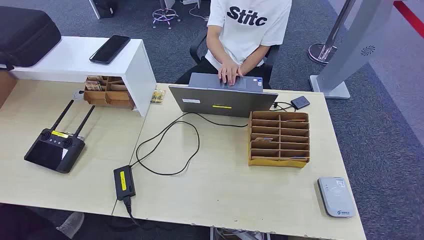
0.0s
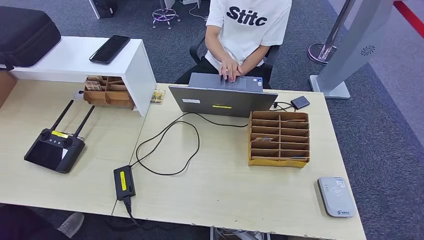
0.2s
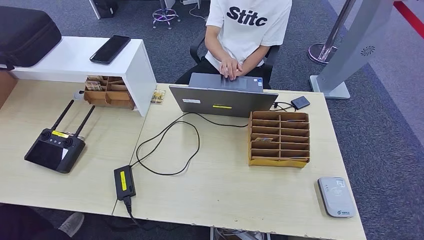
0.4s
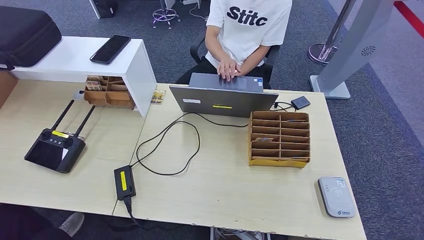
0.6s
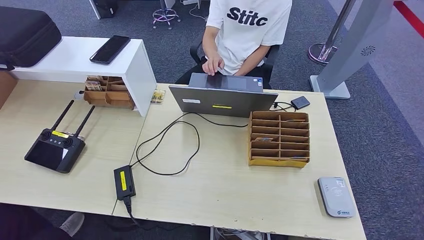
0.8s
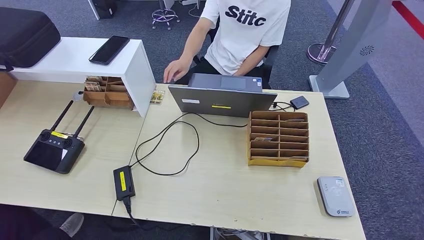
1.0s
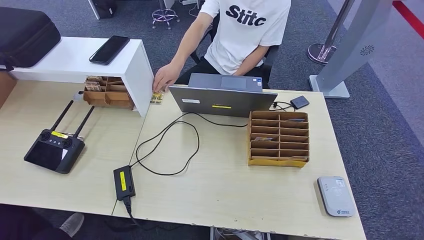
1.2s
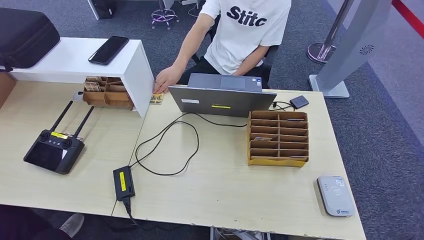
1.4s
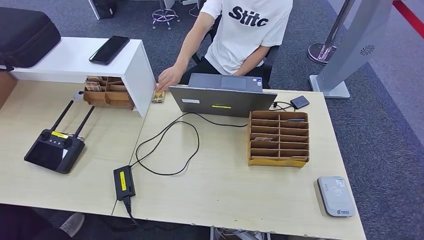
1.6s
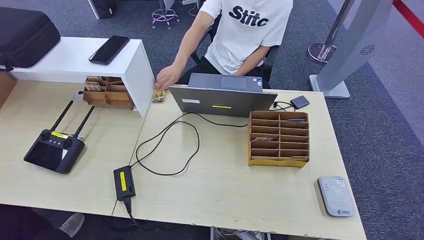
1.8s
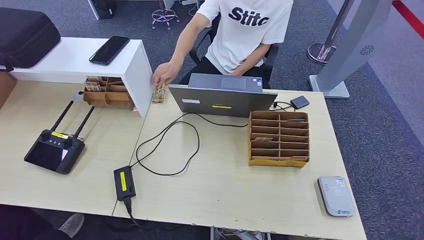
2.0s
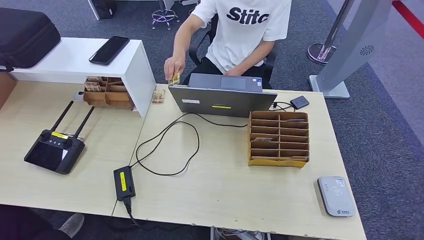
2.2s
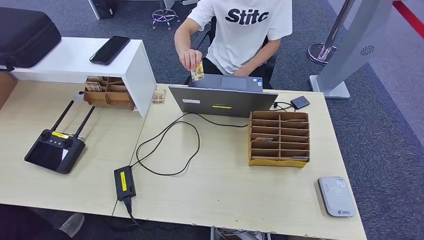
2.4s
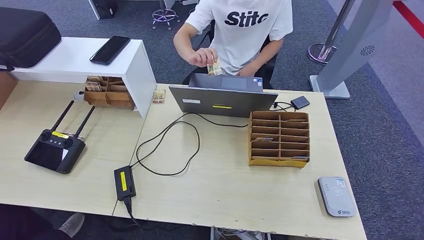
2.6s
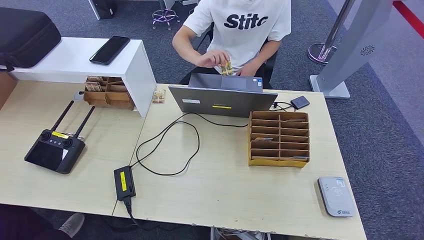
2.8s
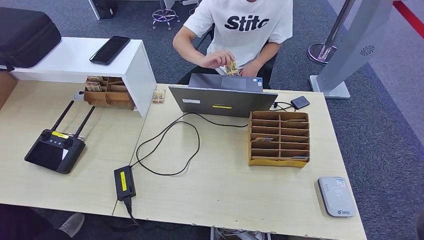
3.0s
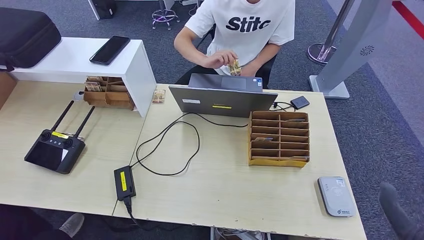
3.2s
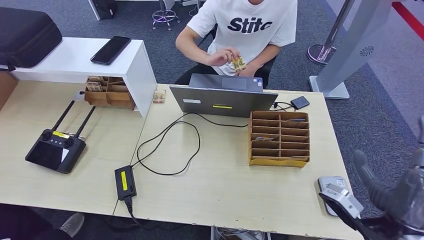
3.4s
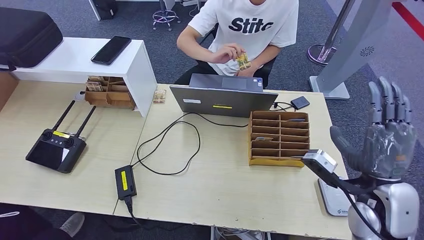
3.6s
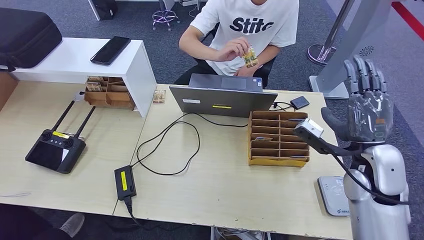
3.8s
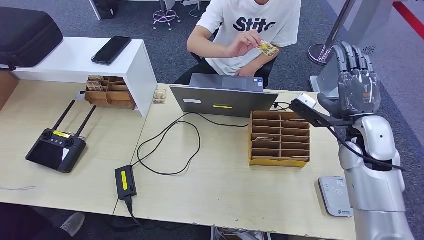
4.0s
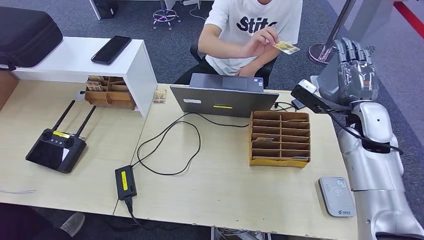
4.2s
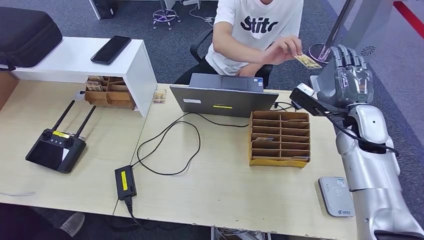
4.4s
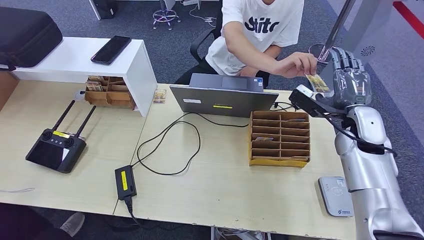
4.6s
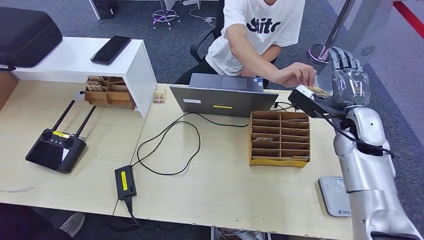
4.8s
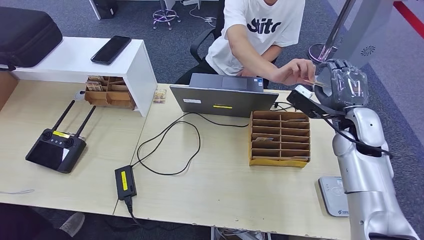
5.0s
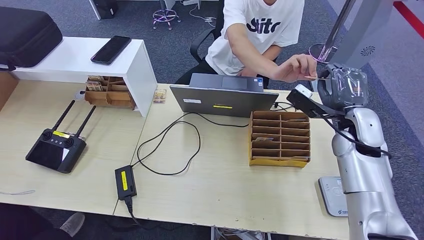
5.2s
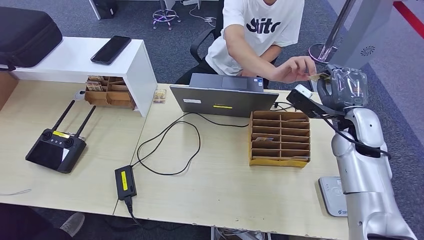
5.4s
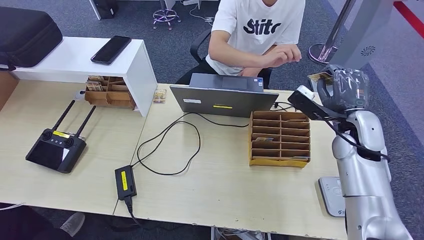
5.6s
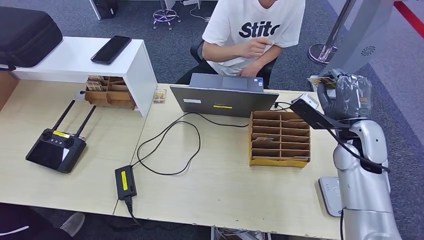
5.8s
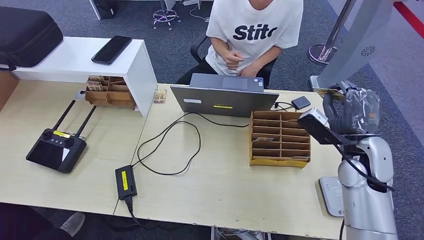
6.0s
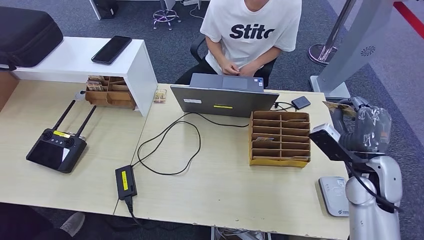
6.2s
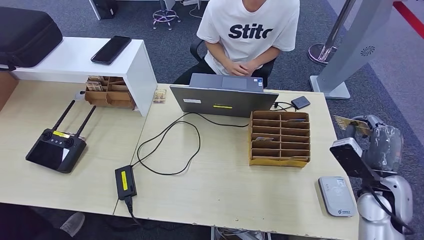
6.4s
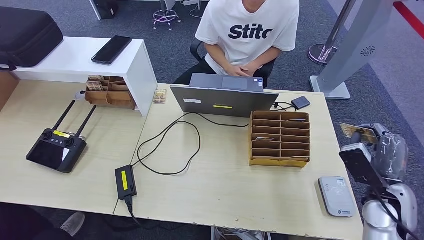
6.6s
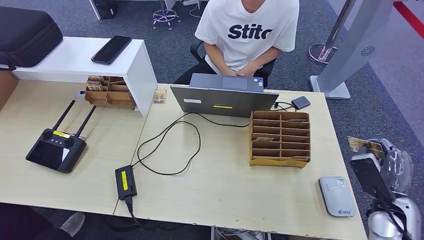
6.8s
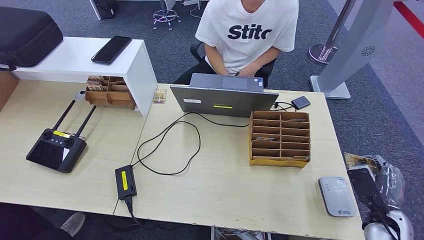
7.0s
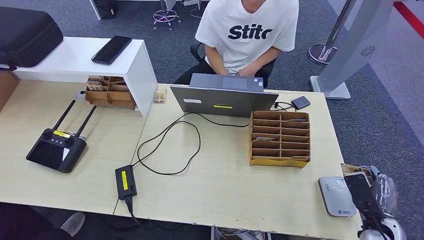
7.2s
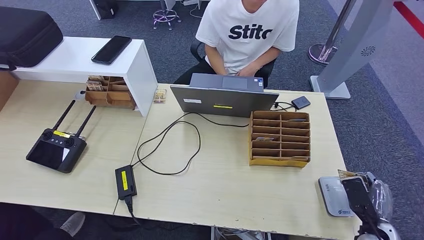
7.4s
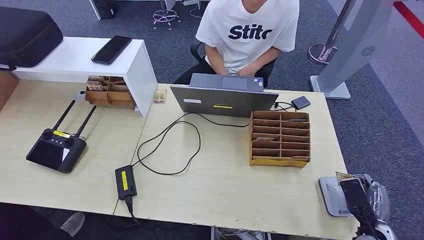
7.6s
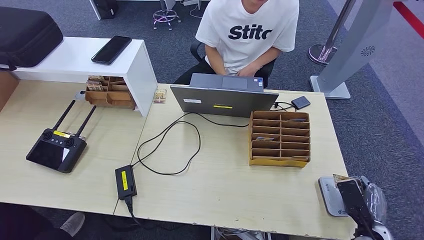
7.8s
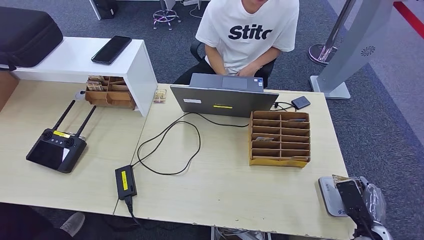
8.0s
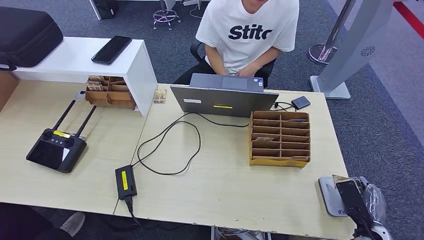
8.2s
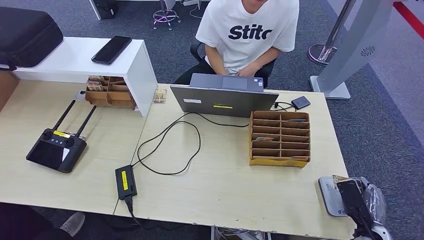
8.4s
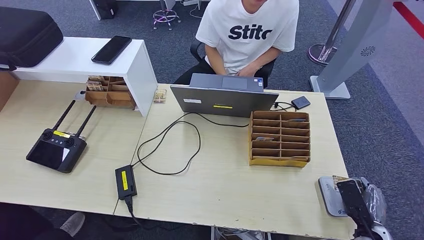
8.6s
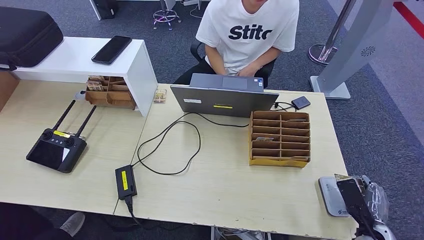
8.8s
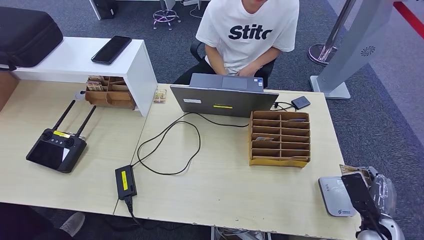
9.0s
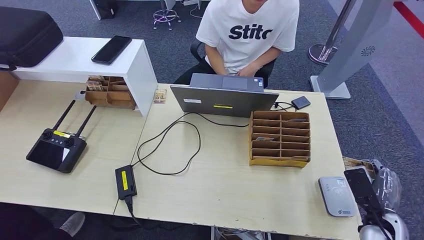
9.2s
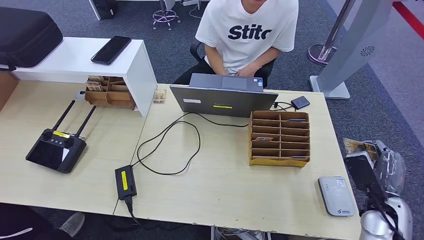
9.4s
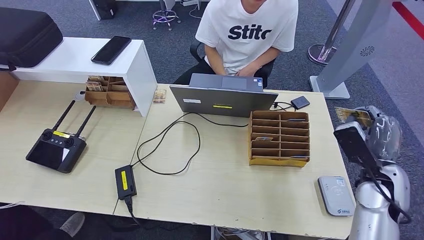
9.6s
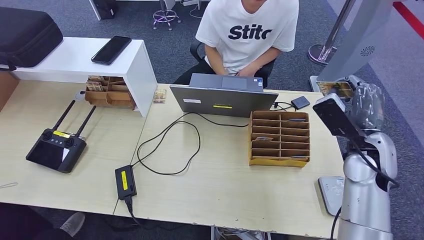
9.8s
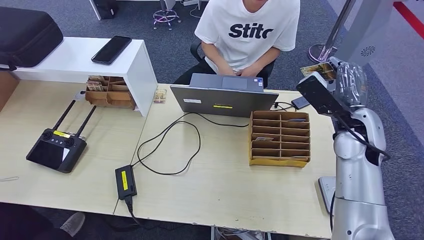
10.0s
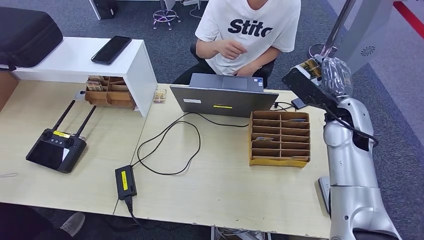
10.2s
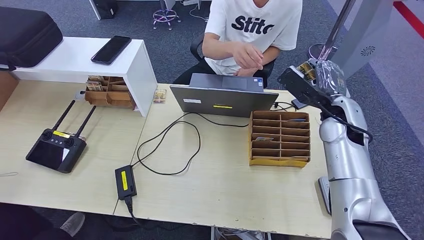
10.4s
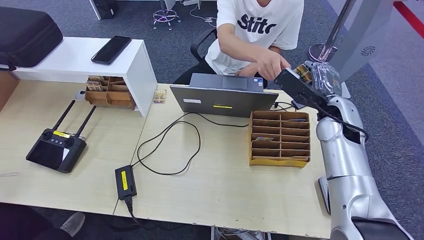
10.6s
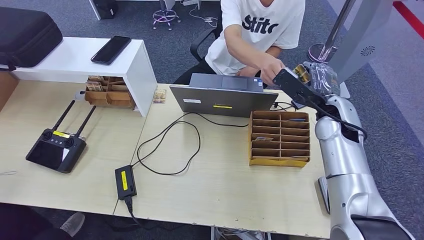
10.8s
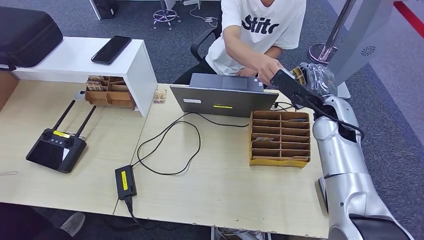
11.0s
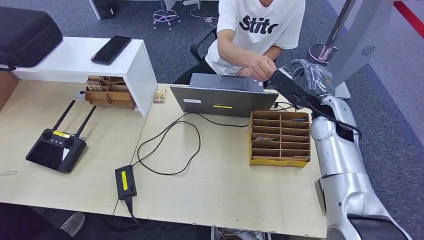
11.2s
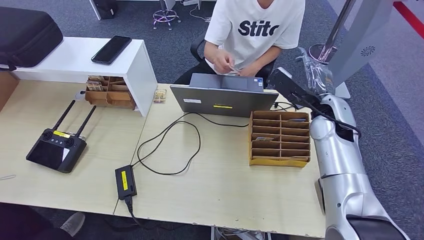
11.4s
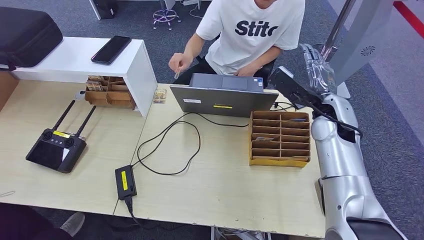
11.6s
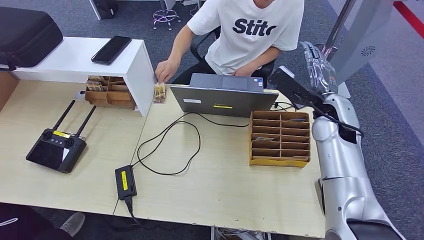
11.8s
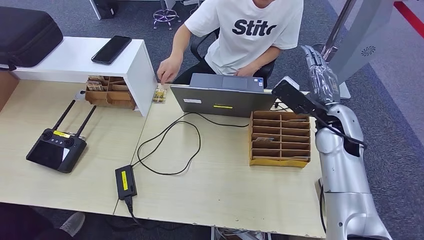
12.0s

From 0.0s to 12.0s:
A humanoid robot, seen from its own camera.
Step, from 0.0s to 6.4s: Take the ID card from the person's hand.
Step, from 6.6s to 9.0s: Place the ID card on the card reader.
From 1.6s to 3.0s: The right hand heads upward and to the left, covering approximately 20 cm.
From 3.0s to 4.4s: The right hand heads forward, covering about 30 cm.
From 4.4s to 6.0s: The right hand shifts some 5 cm backward.
From 6.0s to 7.6s: The right hand moves downward and backward, some 25 cm.
From 7.6s to 9.0s: The hands stay close to where they were, moving slightly.
From 9.0s to 10.4s: The right hand heads forward, upward and to the left, covering roughly 30 cm.
From 10.4s to 12.0s: There are only small adjustments of the hands.

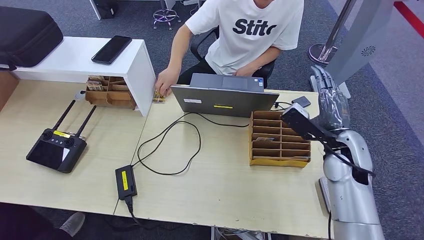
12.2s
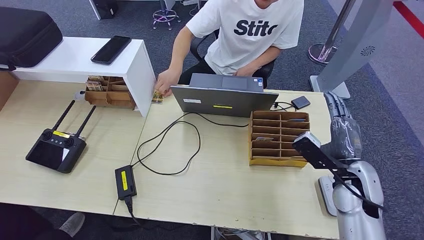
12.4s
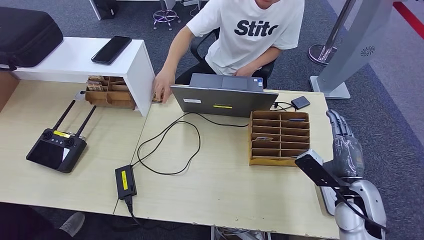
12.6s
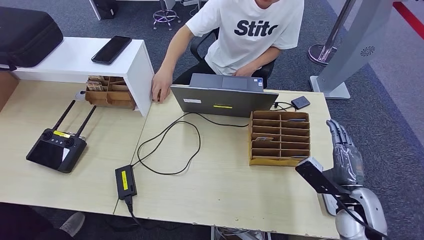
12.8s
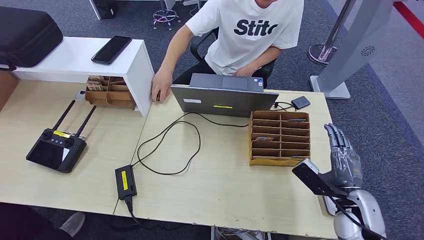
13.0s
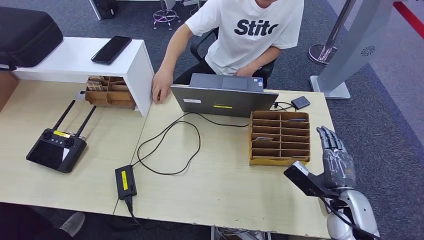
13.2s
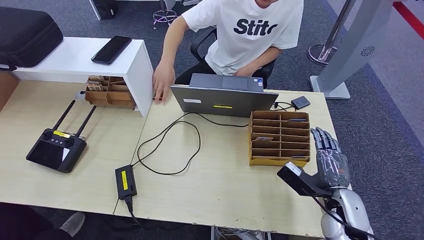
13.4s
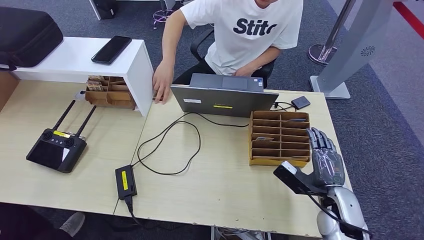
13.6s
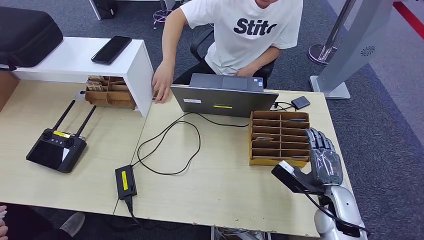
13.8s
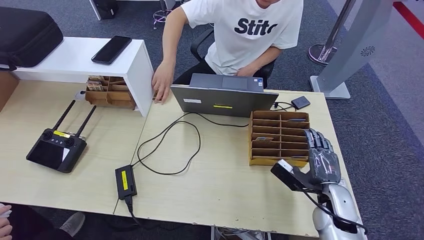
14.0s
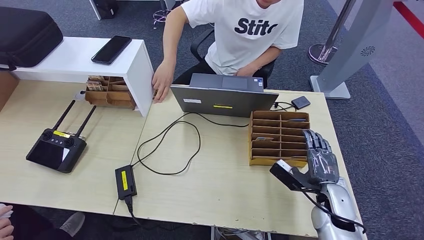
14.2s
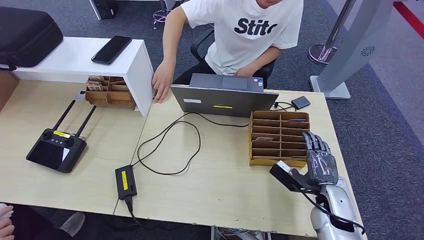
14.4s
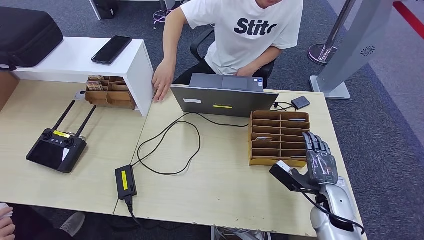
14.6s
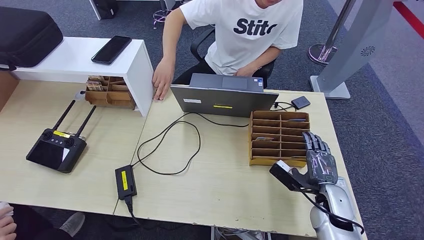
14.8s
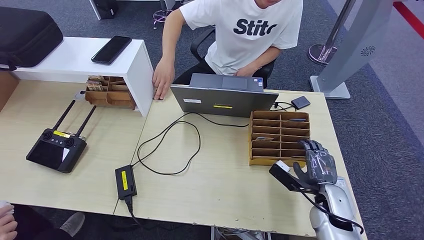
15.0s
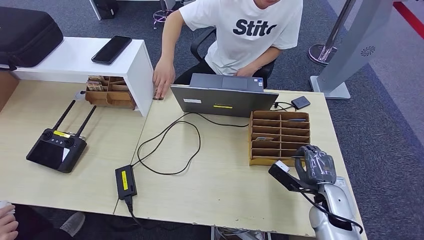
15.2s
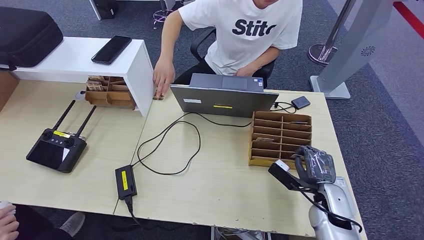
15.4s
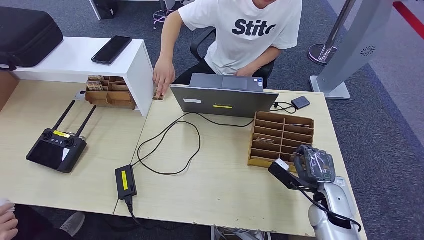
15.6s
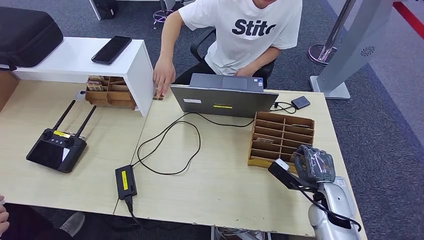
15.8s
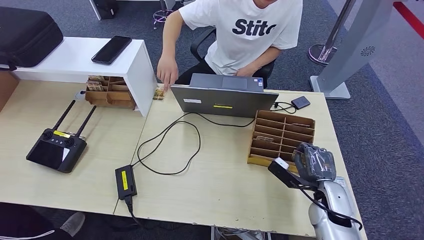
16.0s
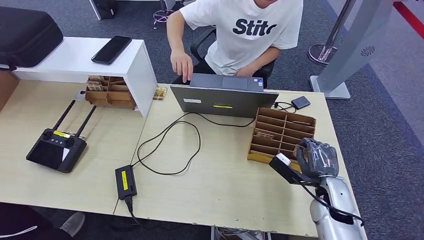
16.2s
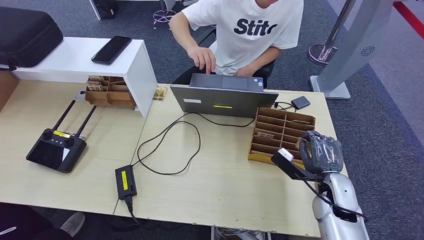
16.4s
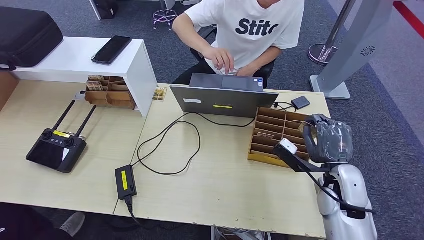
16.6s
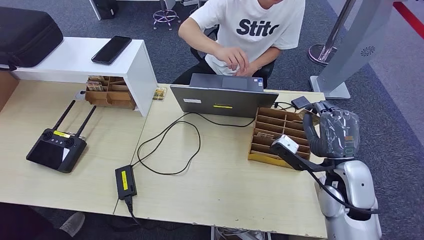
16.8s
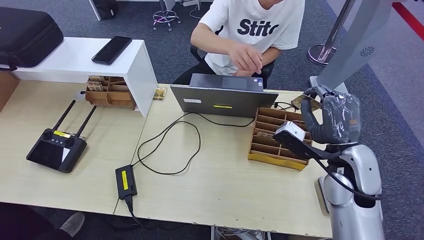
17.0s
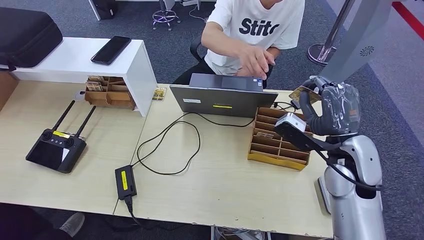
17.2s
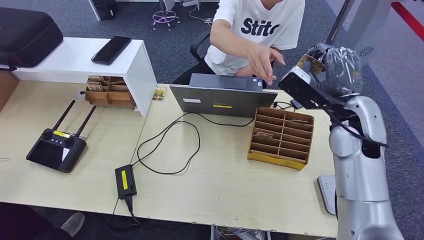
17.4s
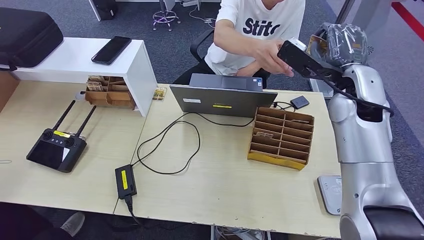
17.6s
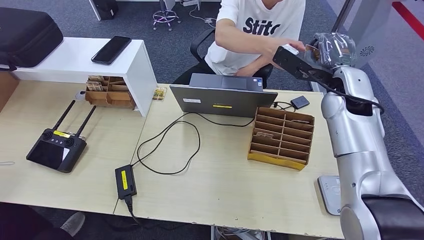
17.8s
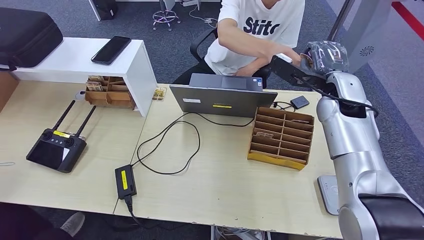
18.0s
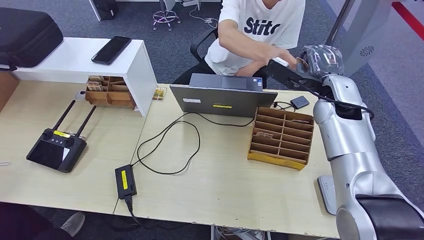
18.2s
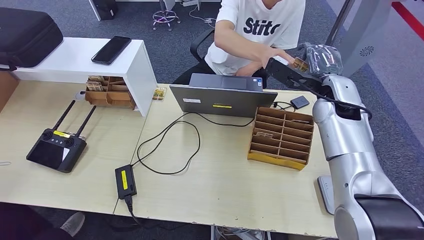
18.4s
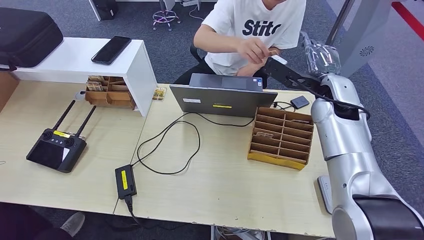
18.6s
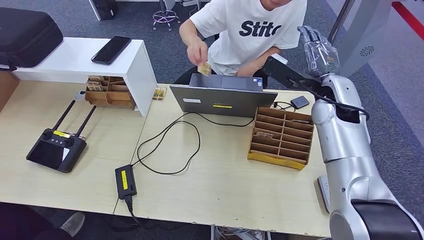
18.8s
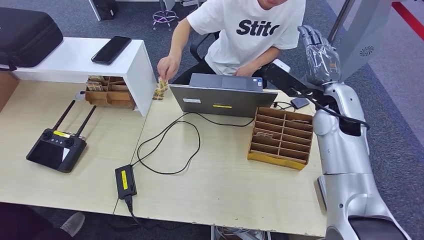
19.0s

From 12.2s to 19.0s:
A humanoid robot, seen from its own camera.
Step, from 12.6s to 17.6s: Pick up the room key from the key card box.
From 12.2s to 13.6s: The right hand moves downward and backward, some 15 cm.
From 13.6s to 16.2s: The hands stay close to where they were, moving slightly.
From 17.6s to 19.0s: The right hand moves approximately 5 cm.
